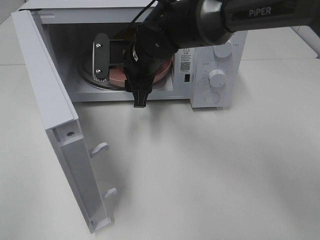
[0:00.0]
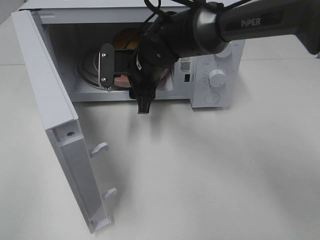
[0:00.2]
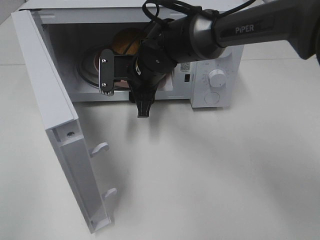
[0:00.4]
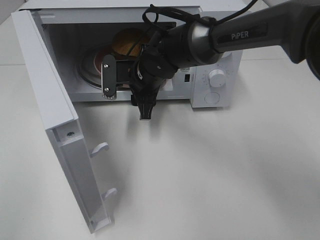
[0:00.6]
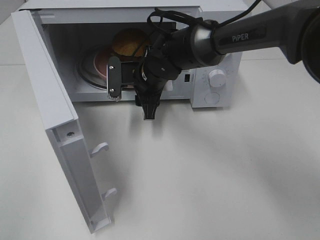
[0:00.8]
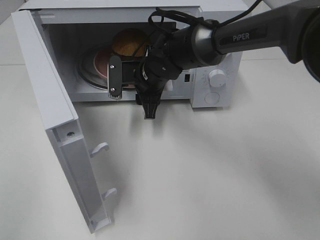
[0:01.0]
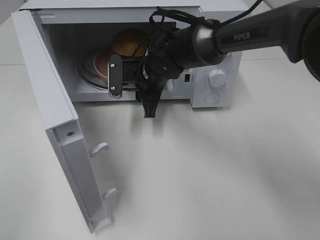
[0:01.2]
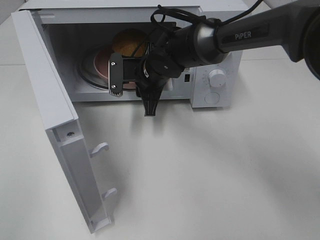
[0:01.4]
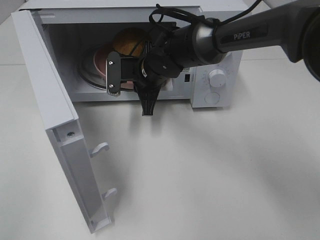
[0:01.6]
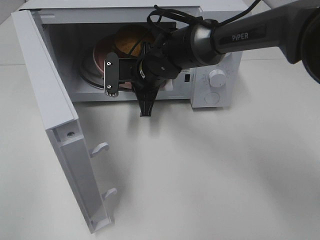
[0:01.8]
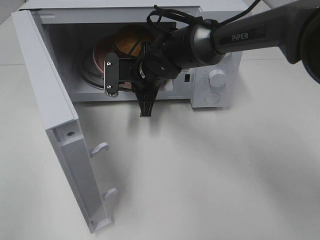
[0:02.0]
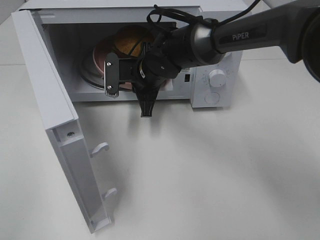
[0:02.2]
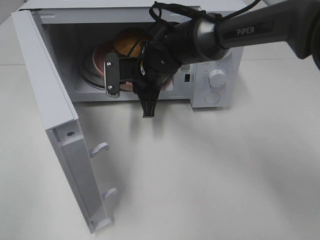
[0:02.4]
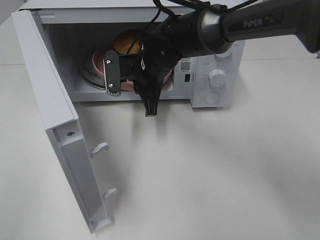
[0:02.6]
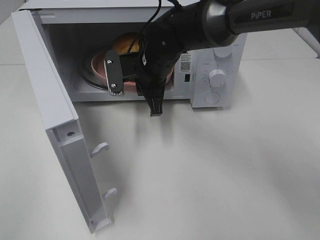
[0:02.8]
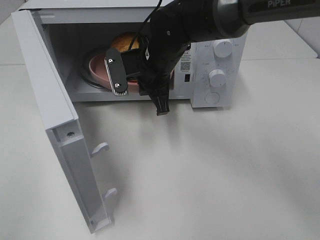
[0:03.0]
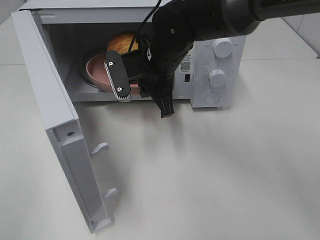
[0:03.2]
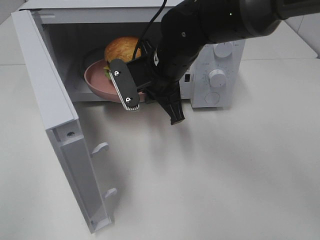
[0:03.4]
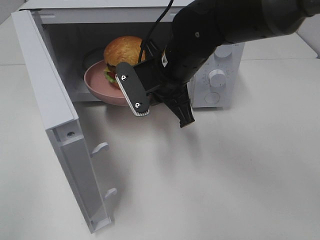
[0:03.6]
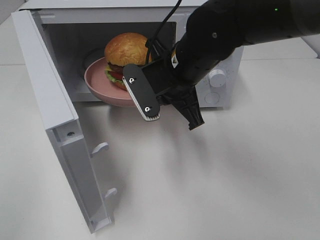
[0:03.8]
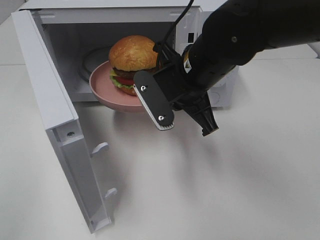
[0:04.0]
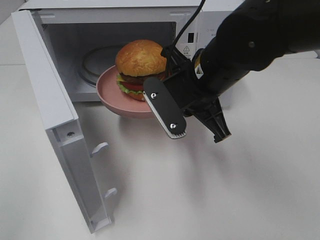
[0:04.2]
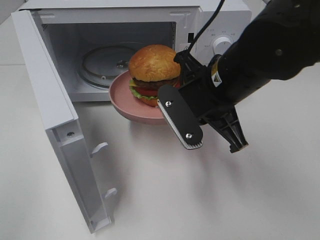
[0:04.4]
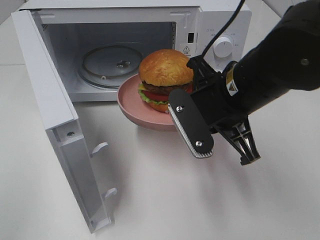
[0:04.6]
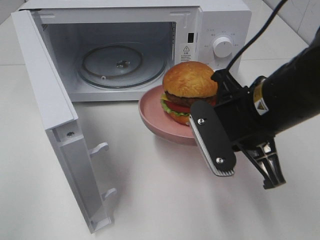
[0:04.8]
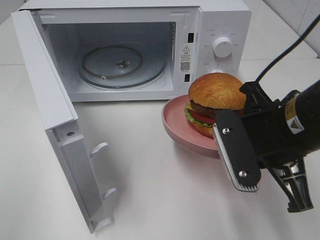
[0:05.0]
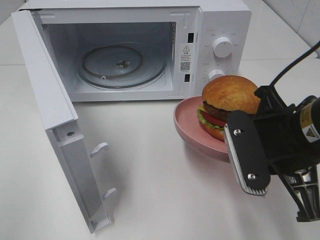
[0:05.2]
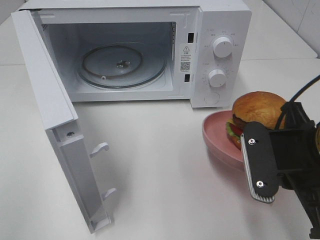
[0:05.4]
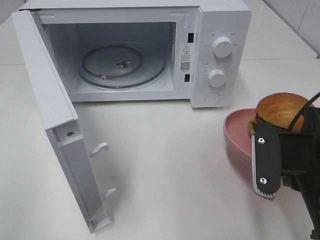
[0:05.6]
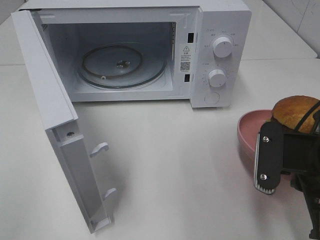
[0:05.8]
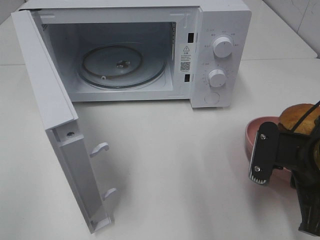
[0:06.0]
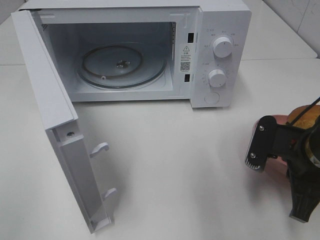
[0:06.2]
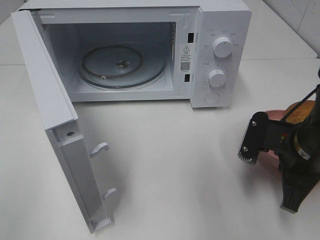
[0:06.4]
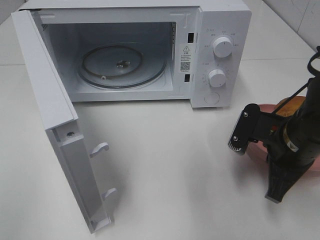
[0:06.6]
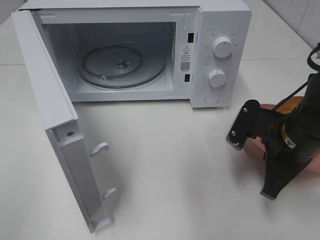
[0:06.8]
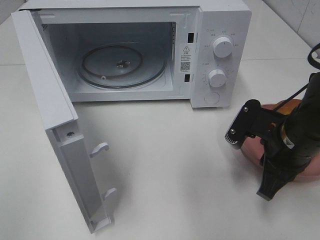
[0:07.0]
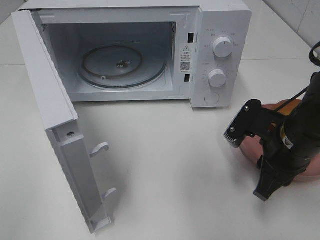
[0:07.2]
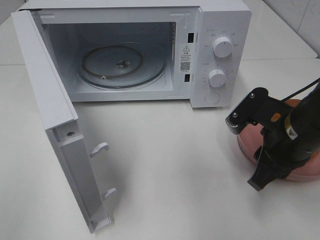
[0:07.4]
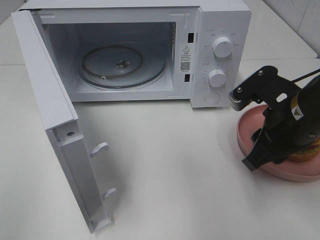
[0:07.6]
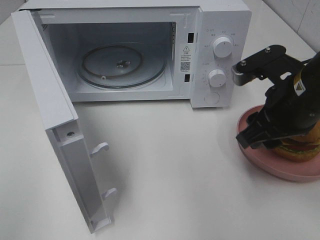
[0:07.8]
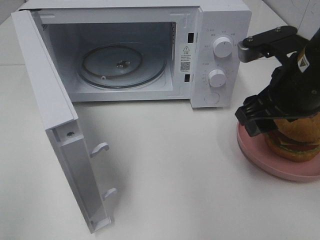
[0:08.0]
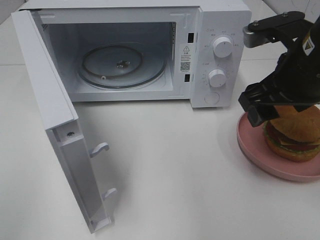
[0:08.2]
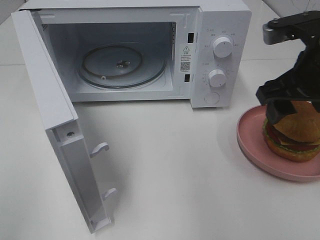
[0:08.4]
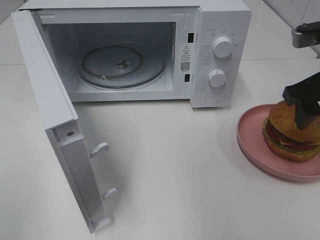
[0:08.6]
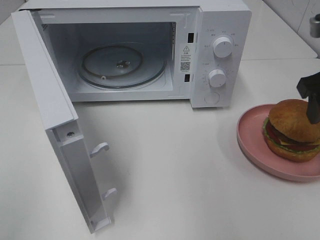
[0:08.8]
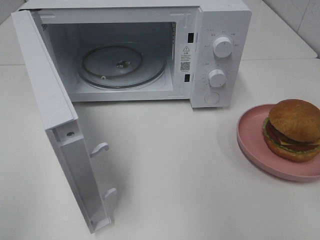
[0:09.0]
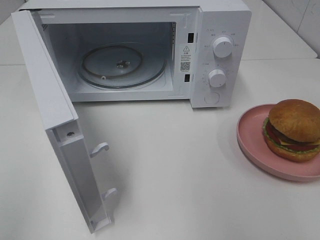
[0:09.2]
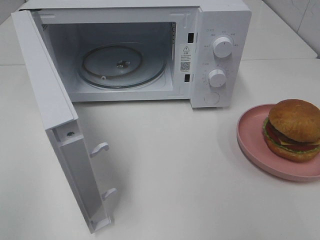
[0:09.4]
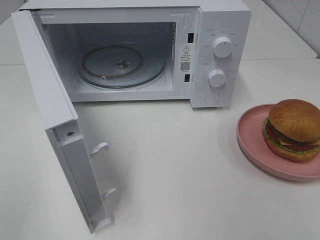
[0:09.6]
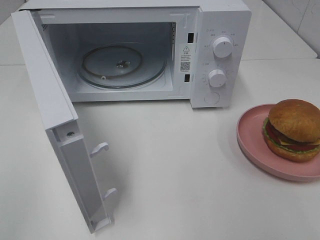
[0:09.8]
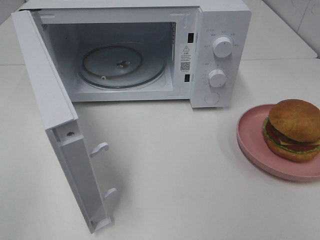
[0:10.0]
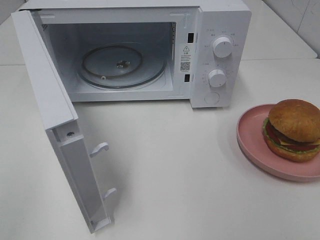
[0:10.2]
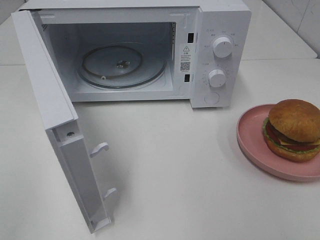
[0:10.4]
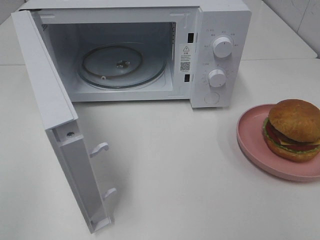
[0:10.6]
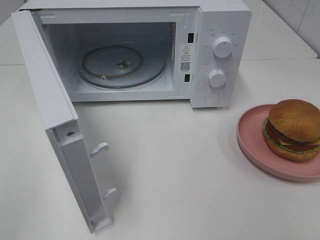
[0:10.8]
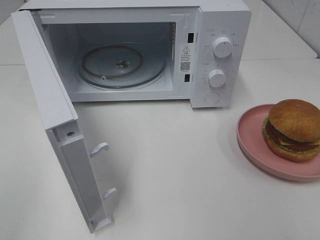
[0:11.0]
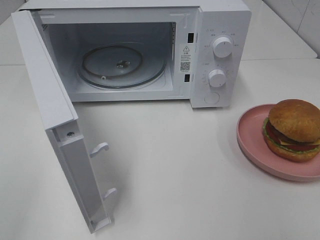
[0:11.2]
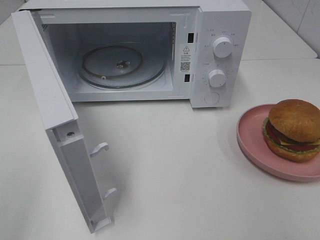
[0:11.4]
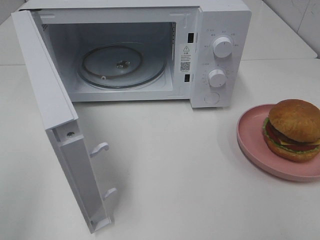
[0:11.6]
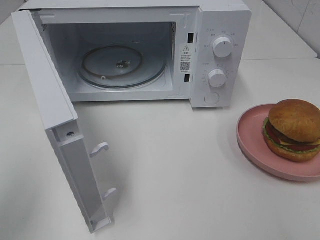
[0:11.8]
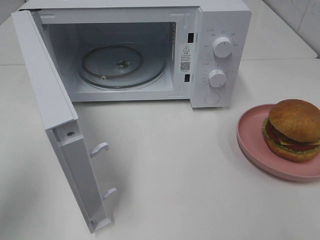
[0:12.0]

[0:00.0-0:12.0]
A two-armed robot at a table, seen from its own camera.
Task of the whole recording: Heat the burger.
Step, 0:02.0 to 0:06.8: Right hand: place the plate on the table.
0:00.0 to 0:01.6: The right gripper moves about 5 cm, and closes its fingers.
0:01.6 to 0:03.0: The right gripper travels upward by about 5 cm.
0:03.0 to 0:04.4: The right gripper heads backward and to the right, covering some 15 cm.
0:04.4 to 0:06.0: The right gripper shifts roughly 15 cm to the right, backward and downward.
0:06.0 to 0:07.6: The right gripper moves forward, some 5 cm, and opens.
0:07.6 to 0:09.0: The right gripper travels upward and to the right by about 15 cm, and opens.
0:10.4 to 0:12.0: The left gripper is displaced forward by roughly 15 cm.

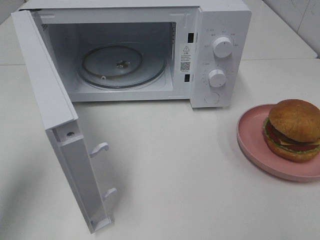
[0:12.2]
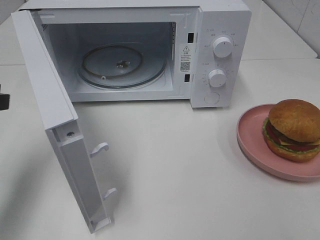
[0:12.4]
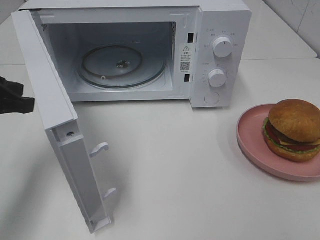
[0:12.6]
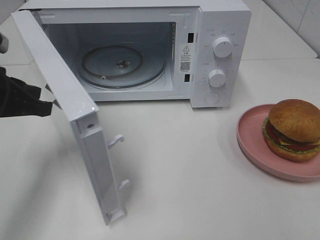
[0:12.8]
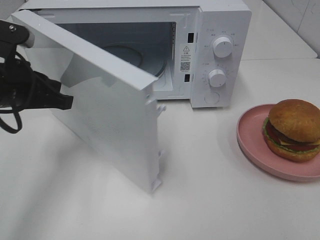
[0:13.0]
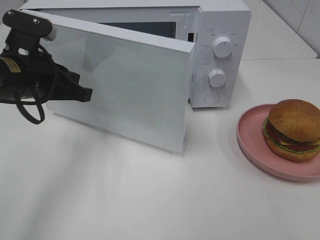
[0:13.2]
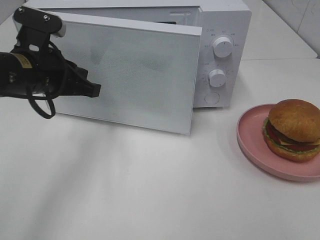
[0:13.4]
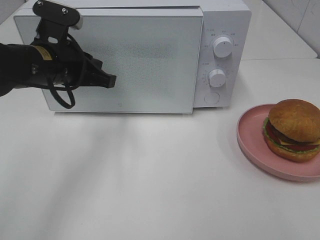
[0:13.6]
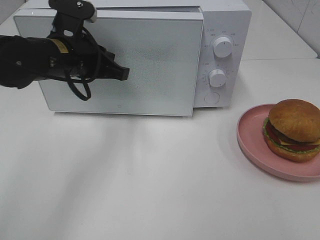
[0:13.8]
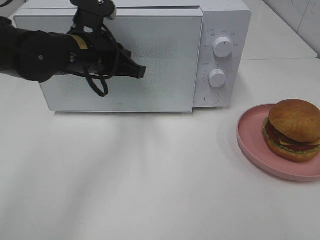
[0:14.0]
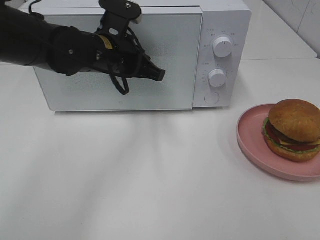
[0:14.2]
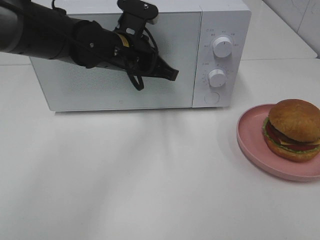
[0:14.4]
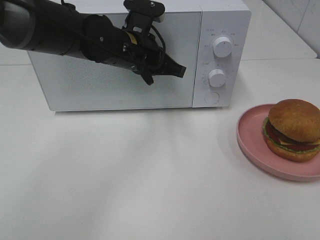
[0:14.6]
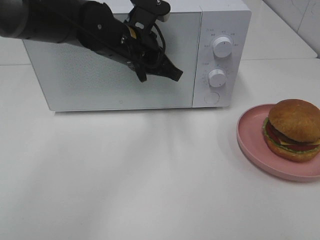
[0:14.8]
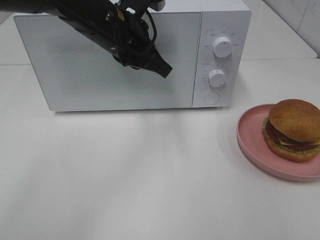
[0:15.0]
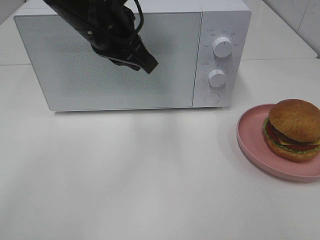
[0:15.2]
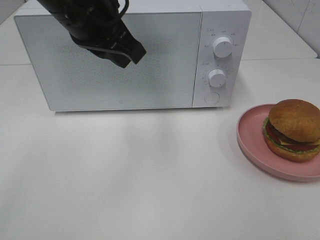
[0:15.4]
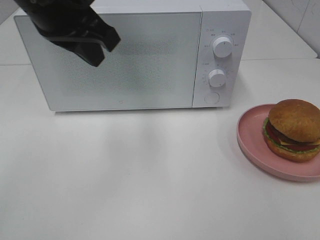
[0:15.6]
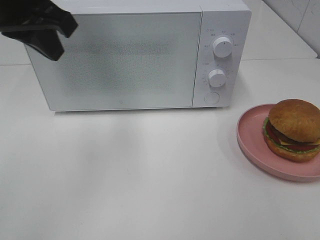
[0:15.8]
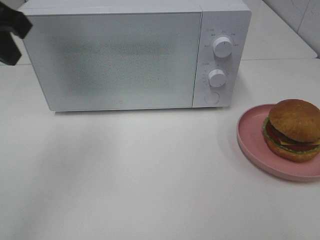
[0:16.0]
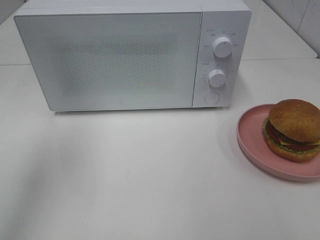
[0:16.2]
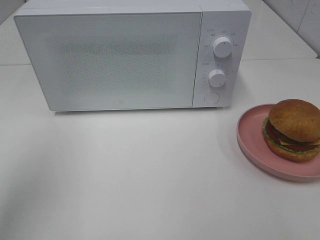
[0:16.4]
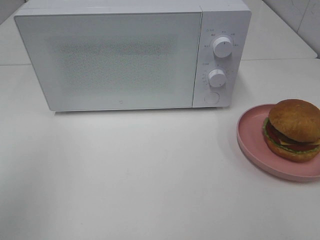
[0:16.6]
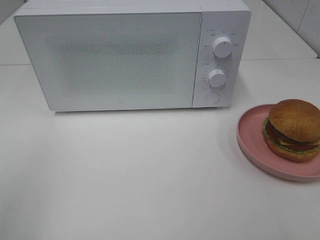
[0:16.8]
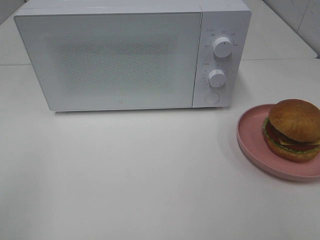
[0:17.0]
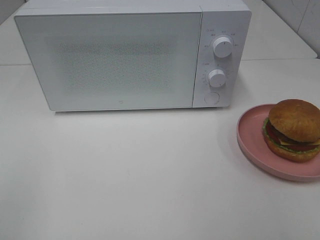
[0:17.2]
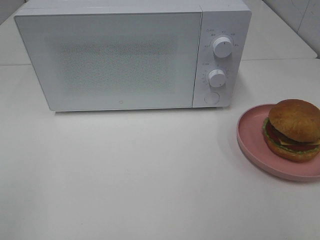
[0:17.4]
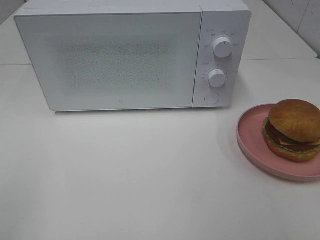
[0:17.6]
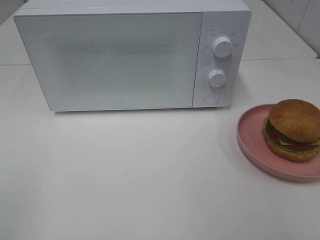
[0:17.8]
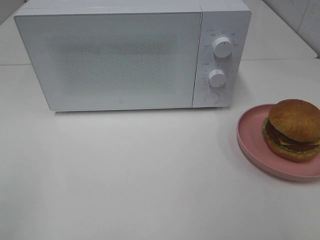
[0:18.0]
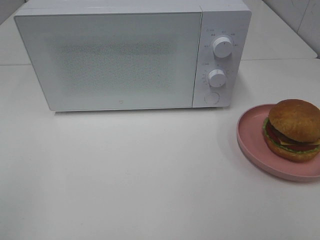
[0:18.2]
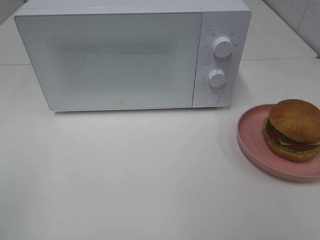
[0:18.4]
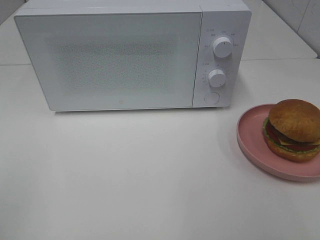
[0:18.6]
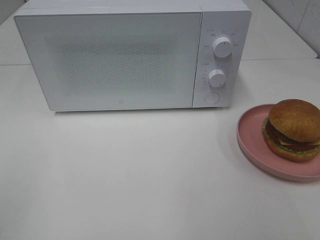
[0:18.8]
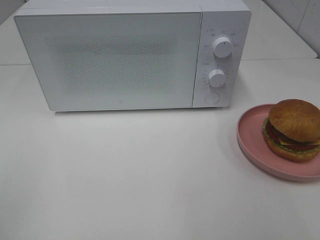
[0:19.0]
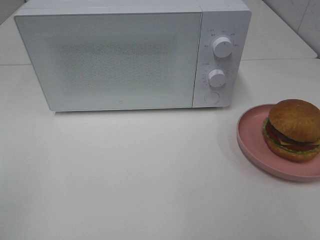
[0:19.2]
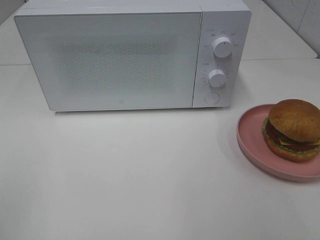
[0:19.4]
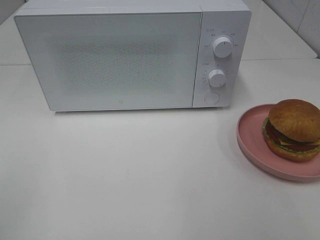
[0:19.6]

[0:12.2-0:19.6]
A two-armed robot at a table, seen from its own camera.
Task of the whole recording: Heat the burger.
Step, 0:12.2 to 0:14.6: Left hand: close the microwave door.
0:12.2 to 0:13.6: The left gripper heads to the right, forward and downward, covering about 20 cm.
0:13.6 to 0:15.2: The left gripper travels upward and to the right by roughly 10 cm, and opens its fingers.
0:15.2 to 0:16.6: The left gripper travels to the left and backward by approximately 30 cm, and closes.
